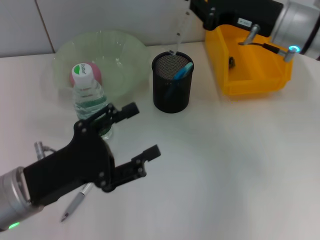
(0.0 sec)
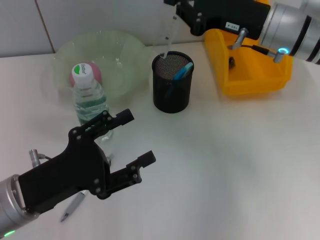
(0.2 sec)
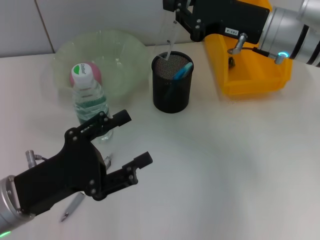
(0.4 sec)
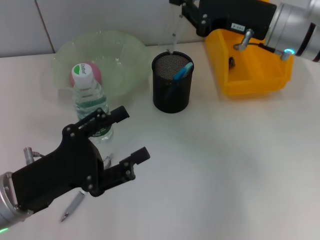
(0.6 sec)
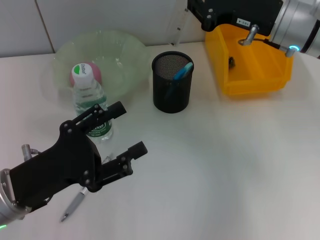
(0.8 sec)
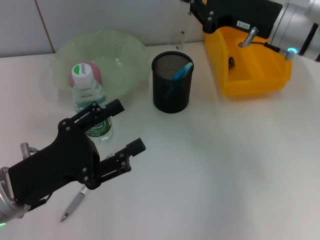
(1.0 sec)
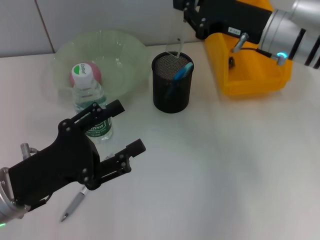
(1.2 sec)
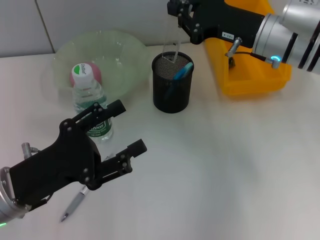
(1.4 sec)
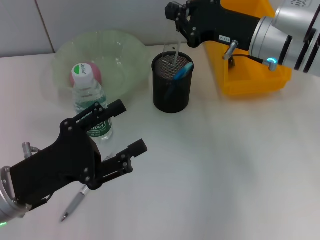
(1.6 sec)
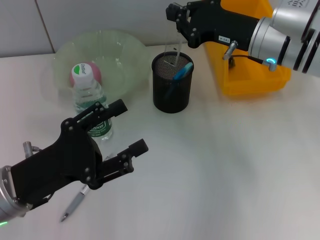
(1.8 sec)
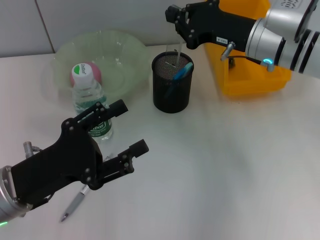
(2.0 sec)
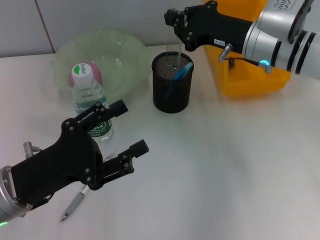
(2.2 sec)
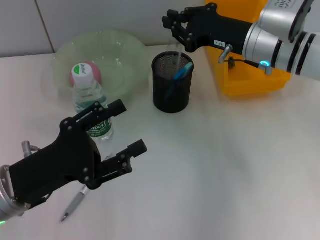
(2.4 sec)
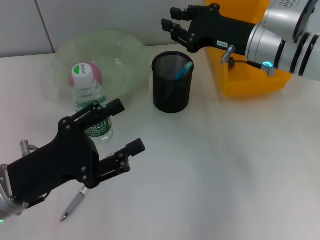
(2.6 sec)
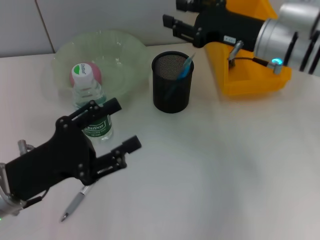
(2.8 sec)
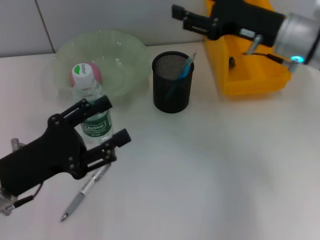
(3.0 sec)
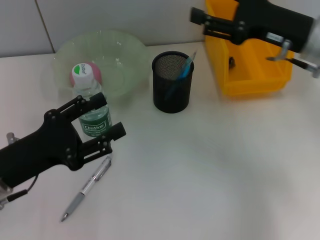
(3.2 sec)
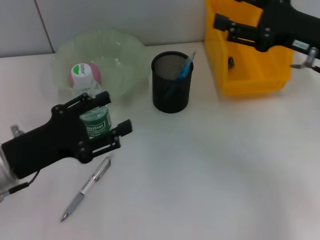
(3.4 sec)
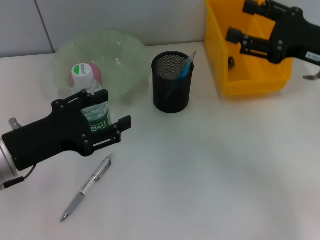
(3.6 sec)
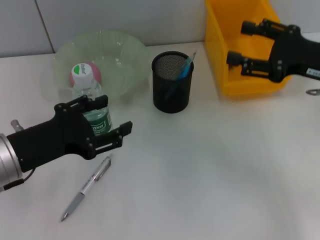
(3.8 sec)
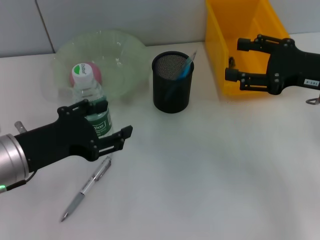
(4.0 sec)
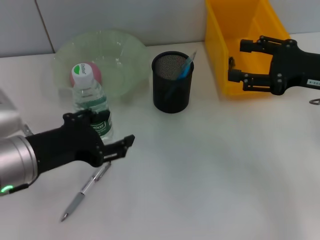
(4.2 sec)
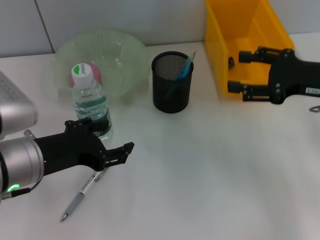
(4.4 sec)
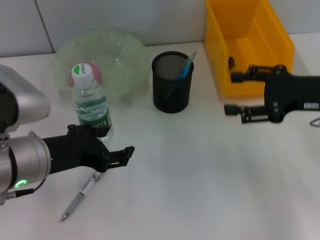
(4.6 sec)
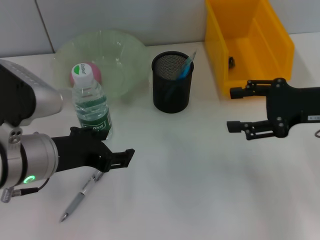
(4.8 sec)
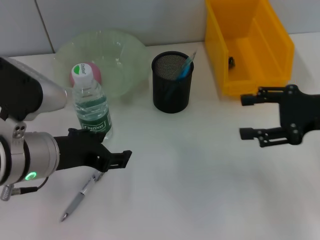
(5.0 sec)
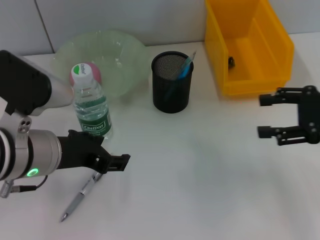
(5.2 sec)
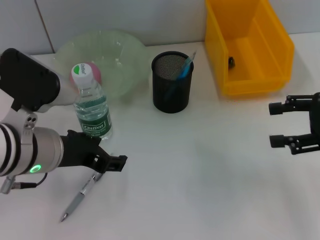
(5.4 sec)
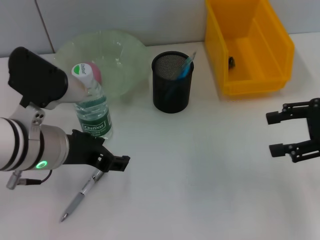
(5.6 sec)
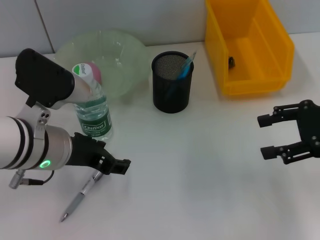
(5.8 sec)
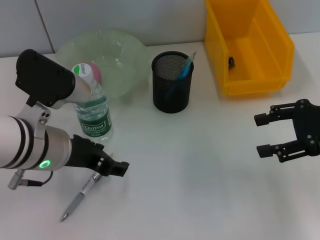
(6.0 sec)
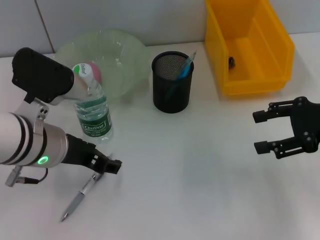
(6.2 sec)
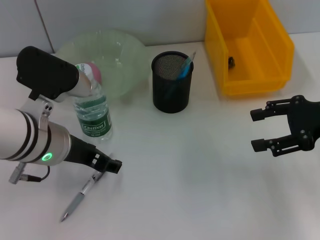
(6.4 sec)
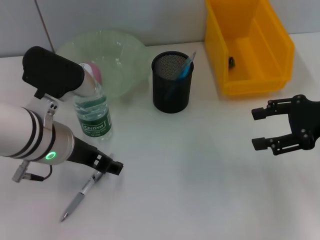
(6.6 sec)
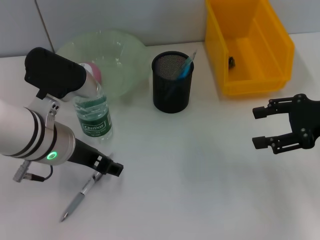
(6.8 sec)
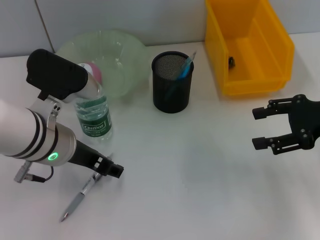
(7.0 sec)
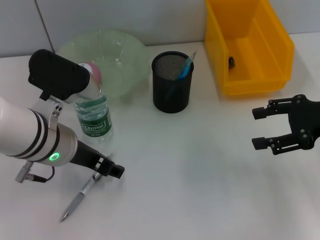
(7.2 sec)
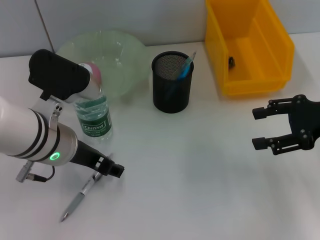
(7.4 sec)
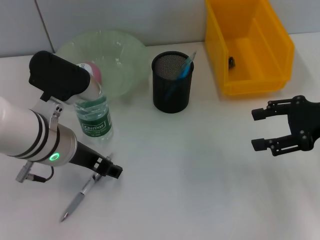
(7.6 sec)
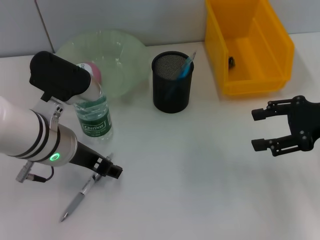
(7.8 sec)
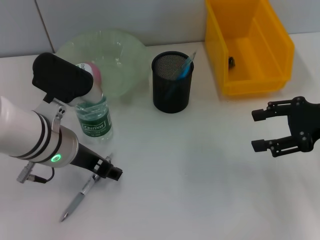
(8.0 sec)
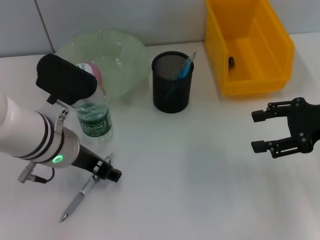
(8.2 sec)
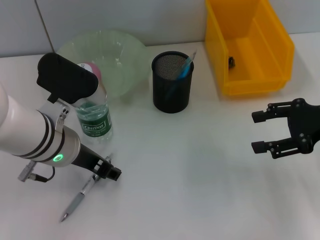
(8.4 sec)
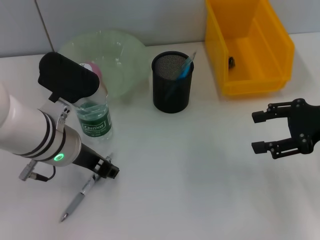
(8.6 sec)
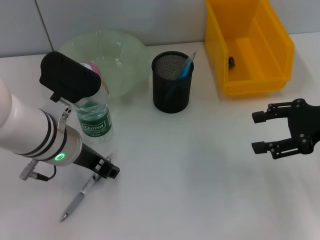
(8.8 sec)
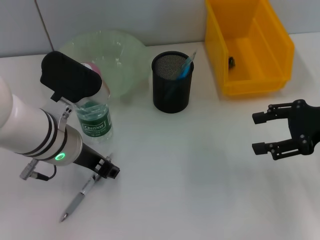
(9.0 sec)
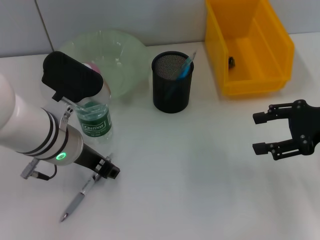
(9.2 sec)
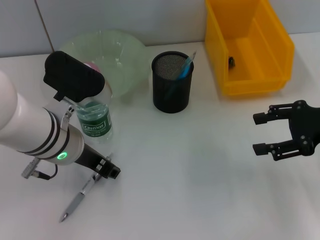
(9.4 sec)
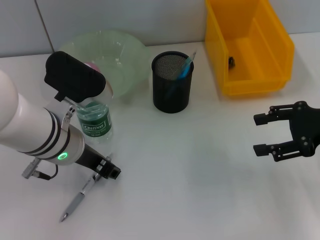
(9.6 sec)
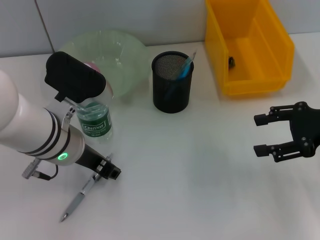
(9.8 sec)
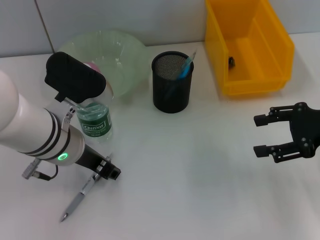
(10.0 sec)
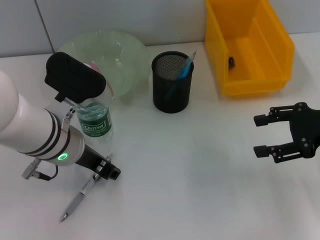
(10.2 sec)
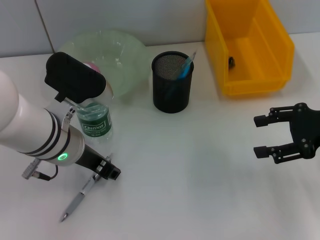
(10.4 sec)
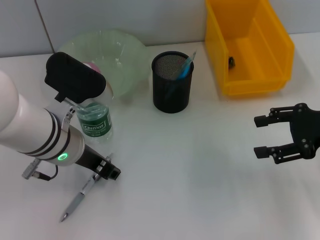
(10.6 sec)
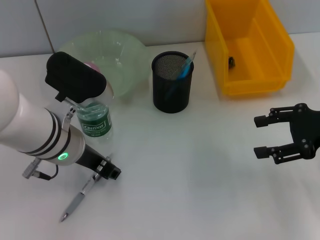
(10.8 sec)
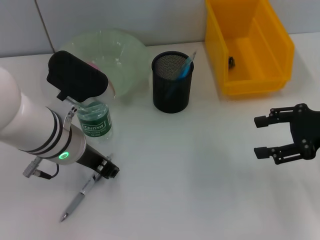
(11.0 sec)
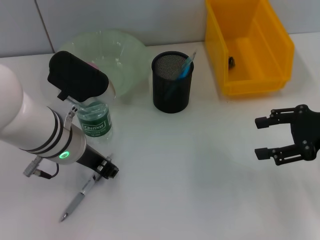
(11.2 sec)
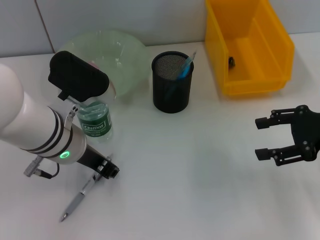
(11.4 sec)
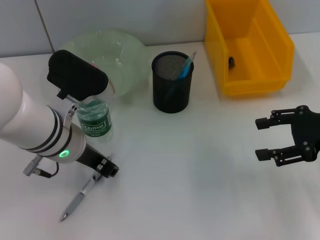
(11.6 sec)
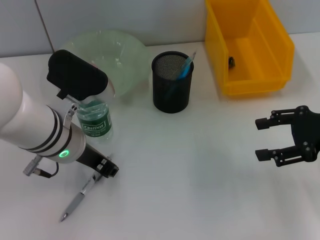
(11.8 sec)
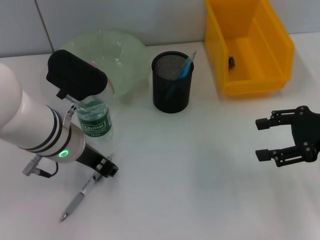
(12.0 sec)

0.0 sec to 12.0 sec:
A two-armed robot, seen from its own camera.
Step, 0.0 sec to 2.6 sec: Place the ruler into the pen holder with the right hand.
0.0 sec to 1.6 sec: The grippers stay close to where they were, moving slightly.
1.6 sec to 3.0 sec: The right gripper opens up.
3.0 sec to 4.4 sec: The right gripper moves to the right and backward, about 10 cm. Meanwhile the left gripper goes approximately 5 cm upward.
4.4 sec to 6.0 sec: The left gripper ends up some 5 cm from where it was.
6.0 sec to 7.6 sec: The grippers stay close to where they were, moving slightly.
7.6 sec to 9.0 sec: Both grippers stay put.
9.0 sec to 12.0 sec: Neither gripper changes place.

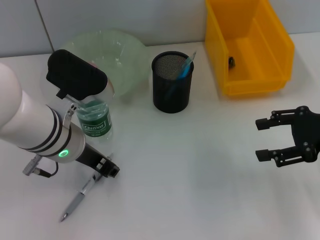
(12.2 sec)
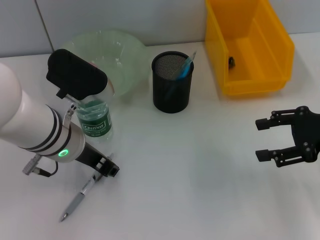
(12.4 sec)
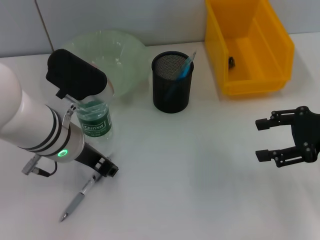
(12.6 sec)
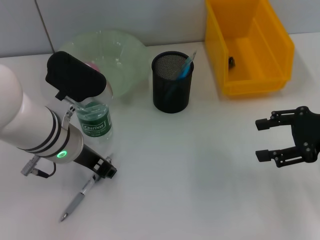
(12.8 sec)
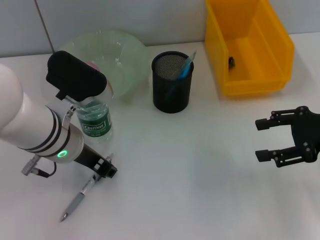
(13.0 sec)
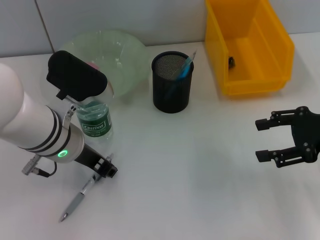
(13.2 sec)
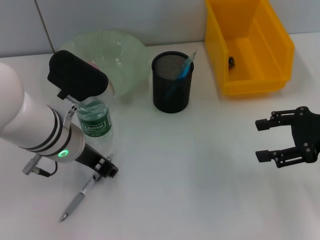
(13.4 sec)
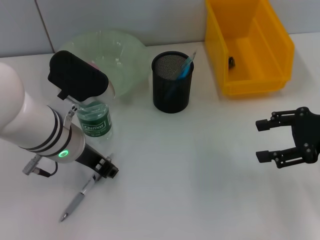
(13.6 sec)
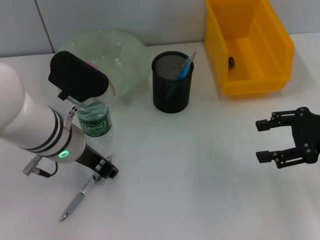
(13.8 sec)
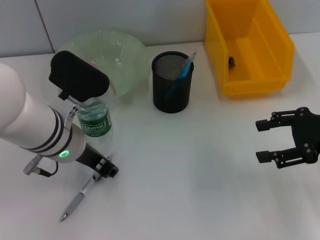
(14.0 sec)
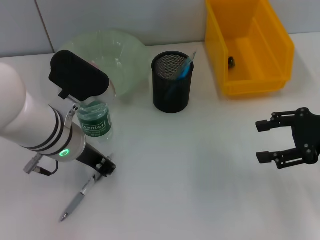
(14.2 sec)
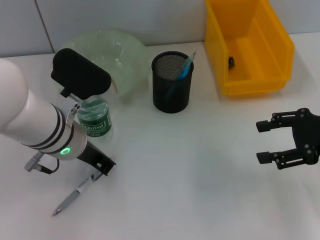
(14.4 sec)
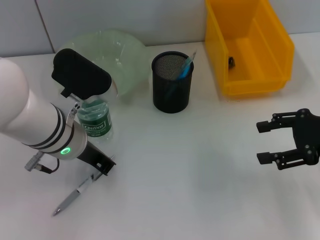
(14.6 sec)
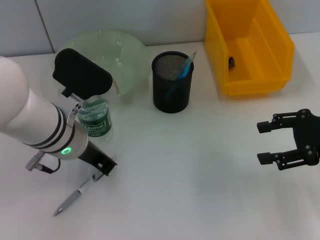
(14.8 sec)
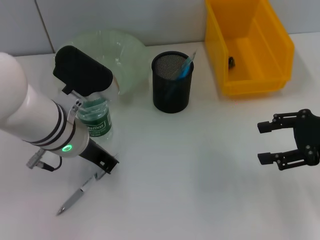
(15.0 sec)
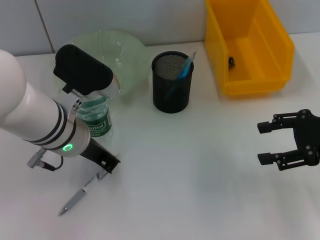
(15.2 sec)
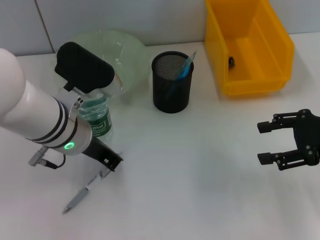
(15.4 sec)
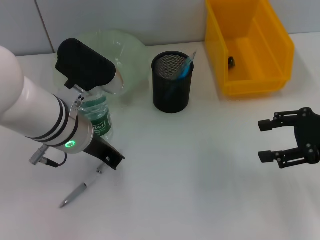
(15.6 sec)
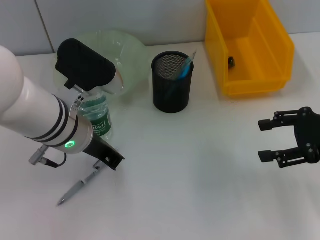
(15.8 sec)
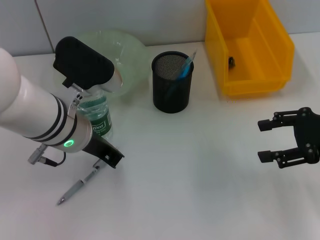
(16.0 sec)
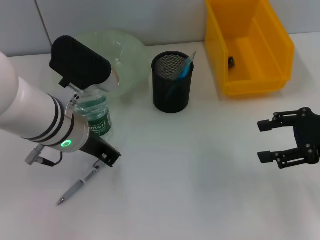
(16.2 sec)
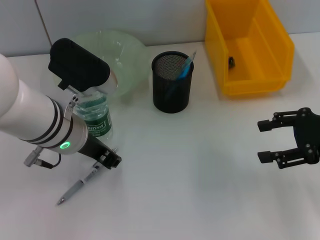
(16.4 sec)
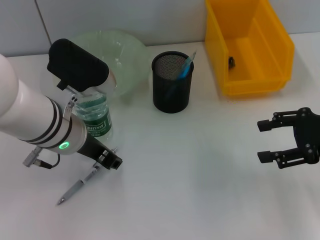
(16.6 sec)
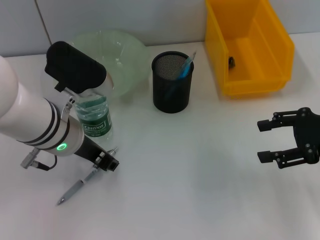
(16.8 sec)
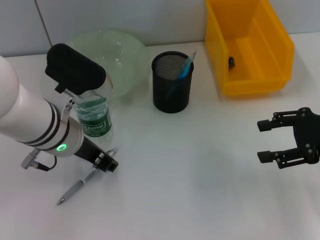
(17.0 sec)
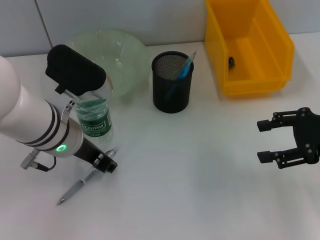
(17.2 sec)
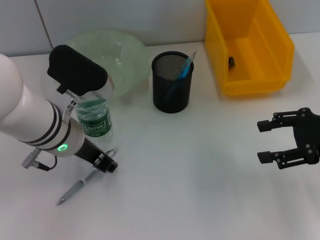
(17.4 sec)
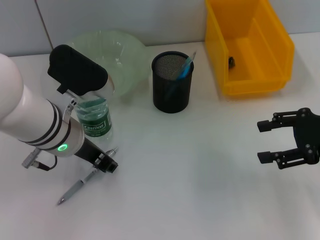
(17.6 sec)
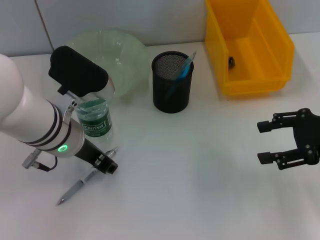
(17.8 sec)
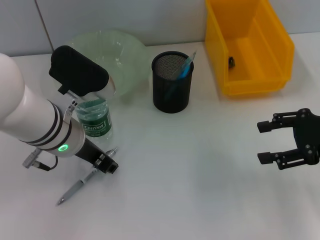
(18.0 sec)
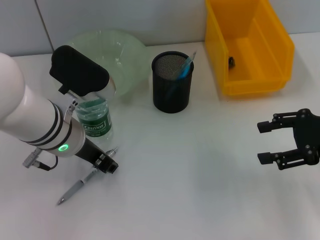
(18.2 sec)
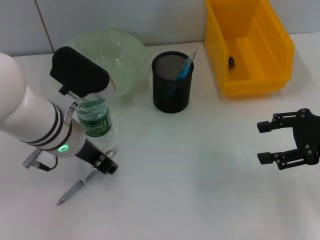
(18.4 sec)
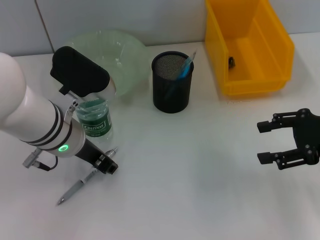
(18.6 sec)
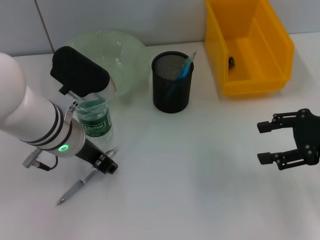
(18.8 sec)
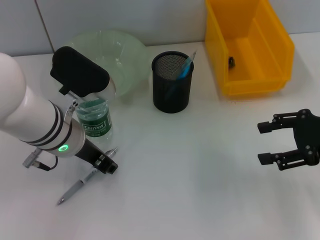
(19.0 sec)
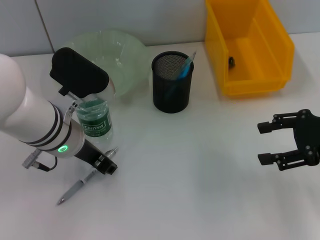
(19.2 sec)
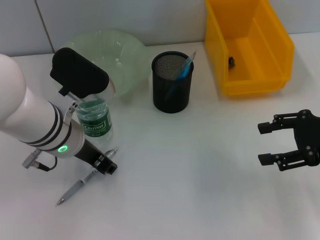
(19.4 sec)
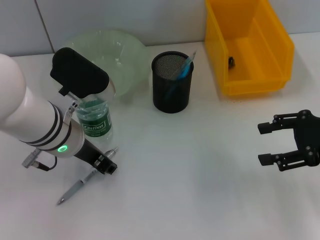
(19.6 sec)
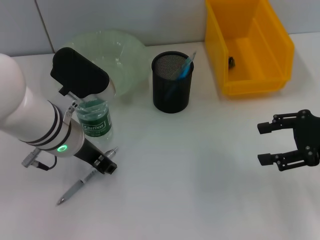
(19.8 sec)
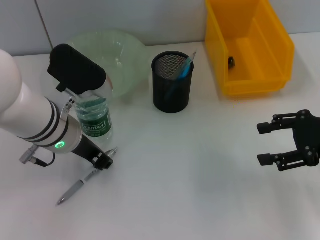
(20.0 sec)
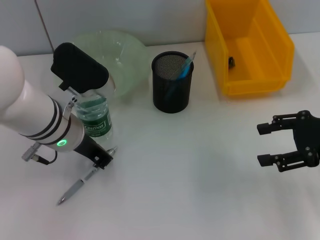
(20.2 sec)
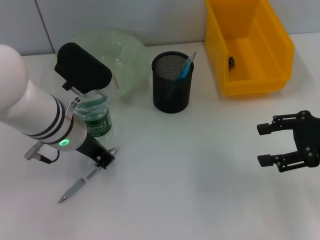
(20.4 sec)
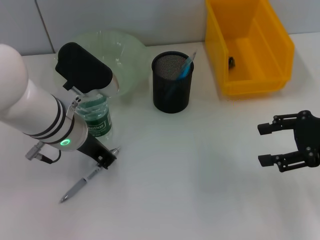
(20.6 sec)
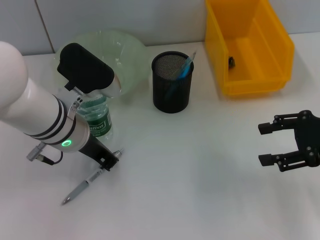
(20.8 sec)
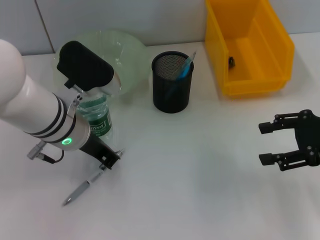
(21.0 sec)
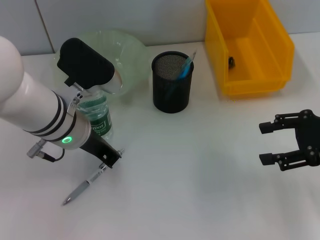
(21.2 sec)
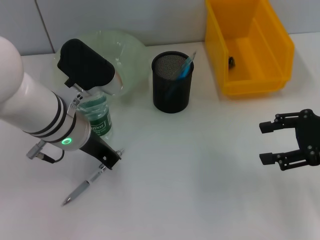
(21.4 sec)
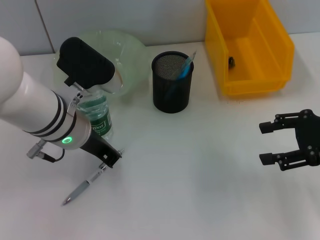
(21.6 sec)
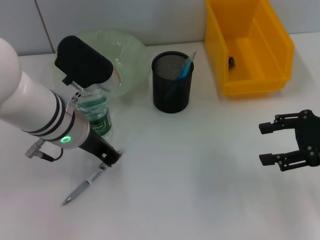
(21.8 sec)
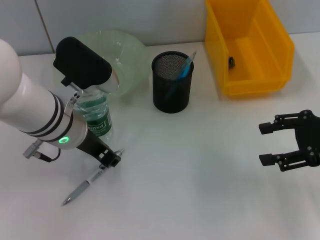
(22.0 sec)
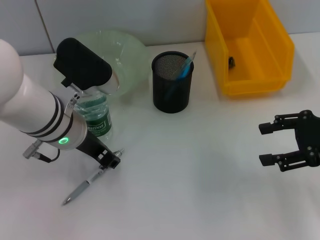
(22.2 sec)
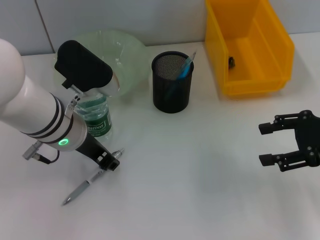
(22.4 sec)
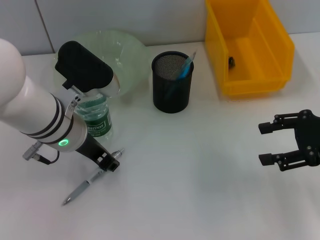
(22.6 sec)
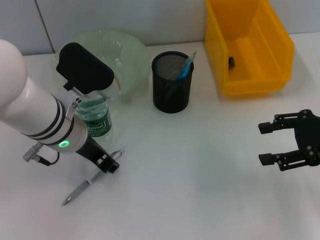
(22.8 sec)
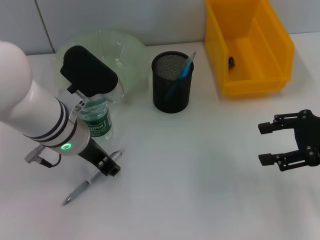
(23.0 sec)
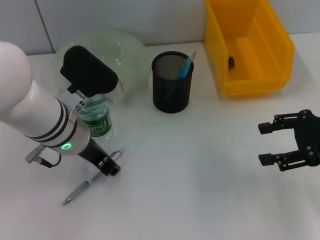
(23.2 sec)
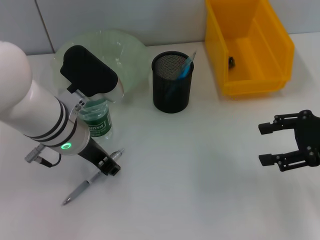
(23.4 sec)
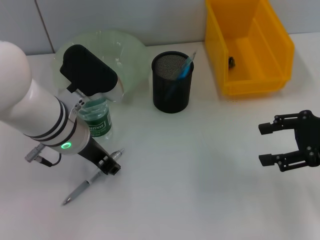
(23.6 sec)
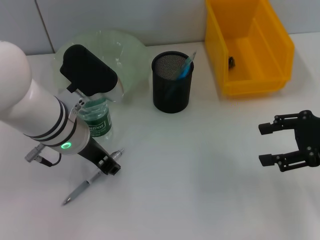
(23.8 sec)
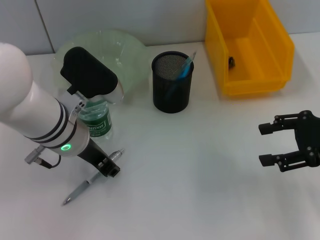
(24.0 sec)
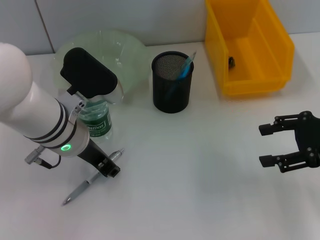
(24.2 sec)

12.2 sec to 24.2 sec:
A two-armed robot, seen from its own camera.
12.2 sec to 15.2 sec: Both grippers stay put.
15.2 sec to 19.8 sec: Neither gripper changes place.
19.8 sec to 21.2 sec: The left gripper closes up.
21.2 sec to 22.6 sec: The left gripper opens.
22.6 sec to 24.2 sec: Neither gripper changes place.
